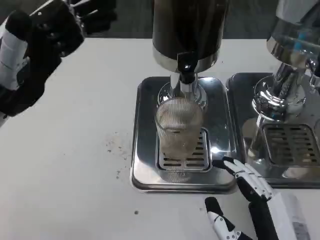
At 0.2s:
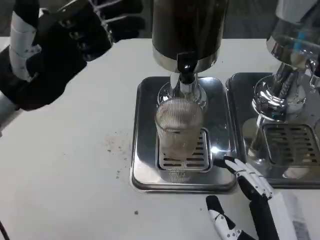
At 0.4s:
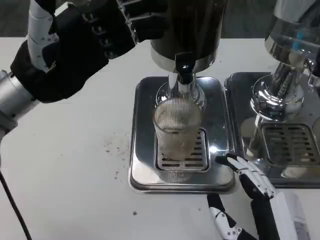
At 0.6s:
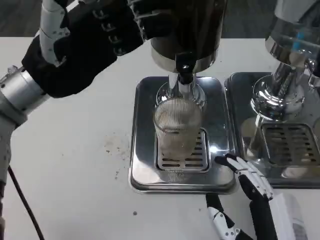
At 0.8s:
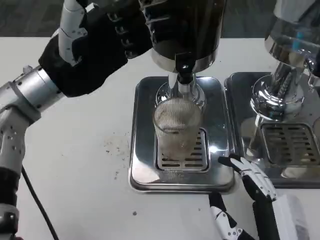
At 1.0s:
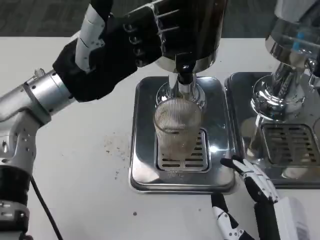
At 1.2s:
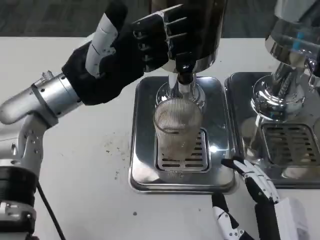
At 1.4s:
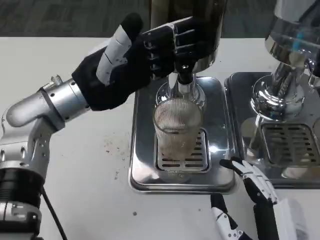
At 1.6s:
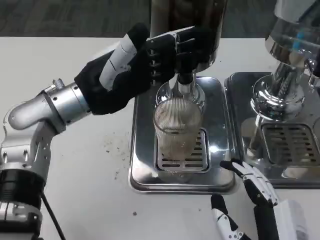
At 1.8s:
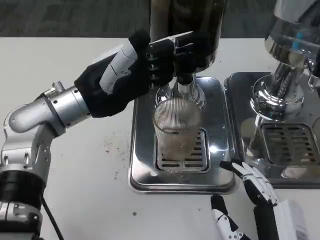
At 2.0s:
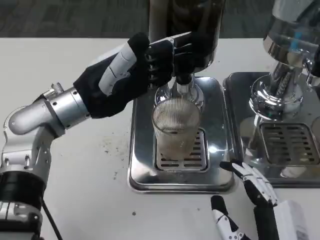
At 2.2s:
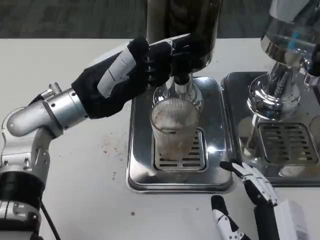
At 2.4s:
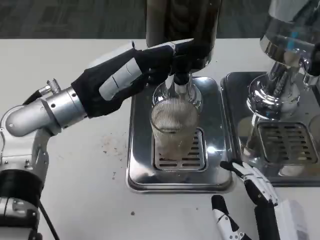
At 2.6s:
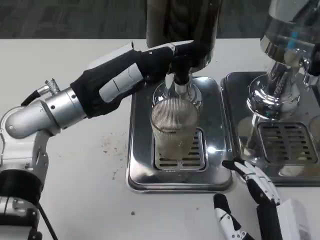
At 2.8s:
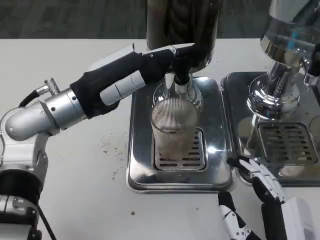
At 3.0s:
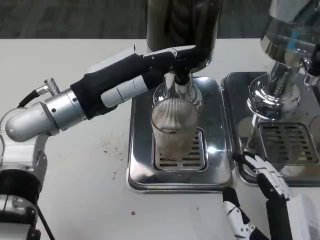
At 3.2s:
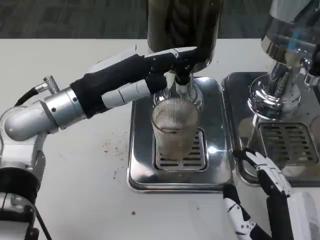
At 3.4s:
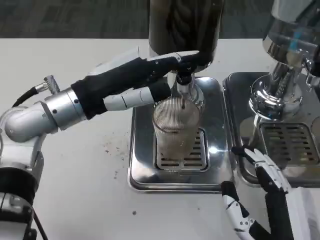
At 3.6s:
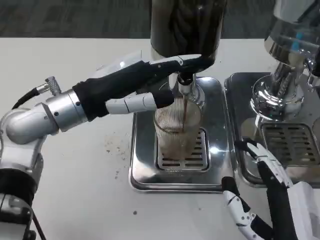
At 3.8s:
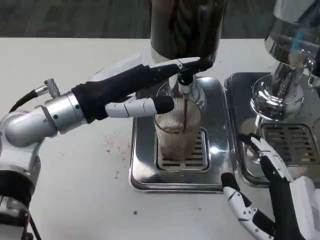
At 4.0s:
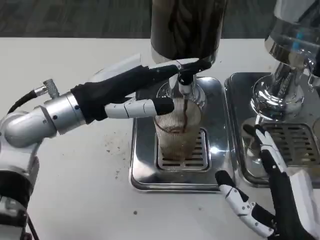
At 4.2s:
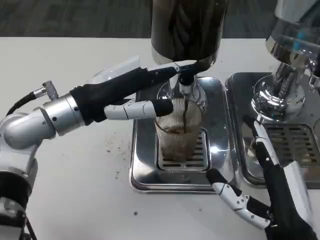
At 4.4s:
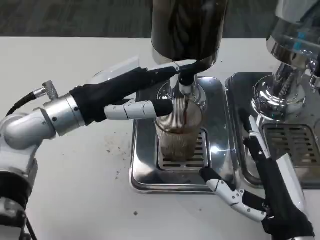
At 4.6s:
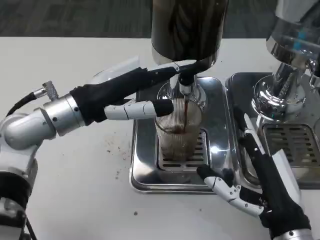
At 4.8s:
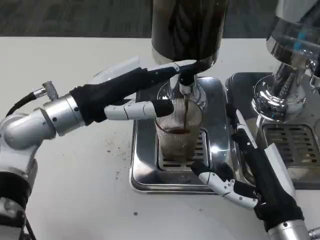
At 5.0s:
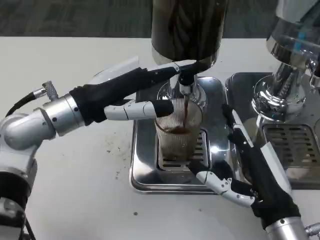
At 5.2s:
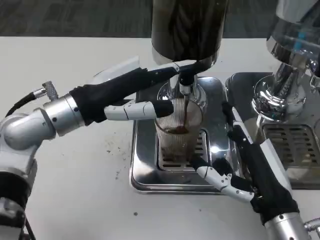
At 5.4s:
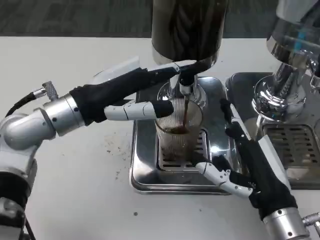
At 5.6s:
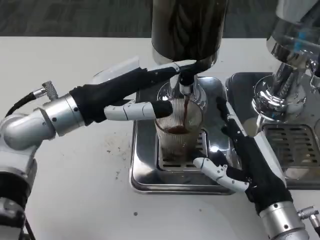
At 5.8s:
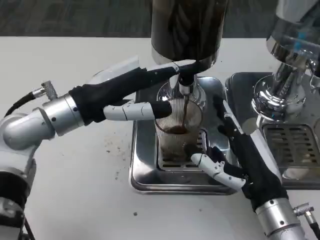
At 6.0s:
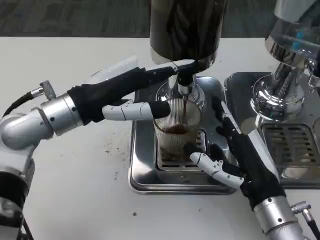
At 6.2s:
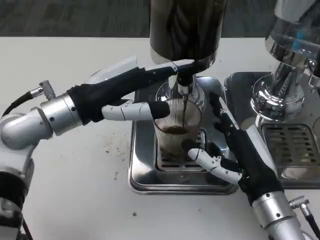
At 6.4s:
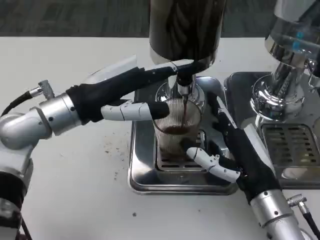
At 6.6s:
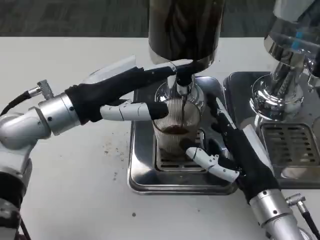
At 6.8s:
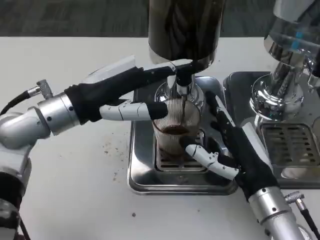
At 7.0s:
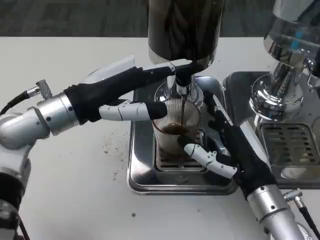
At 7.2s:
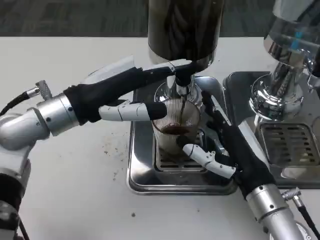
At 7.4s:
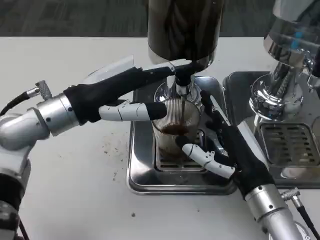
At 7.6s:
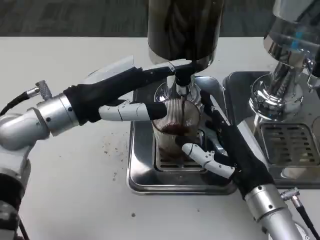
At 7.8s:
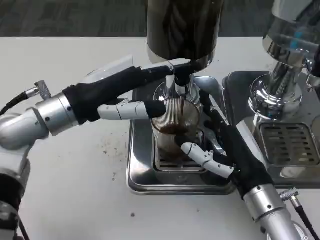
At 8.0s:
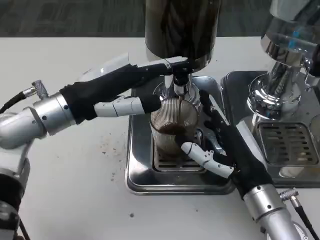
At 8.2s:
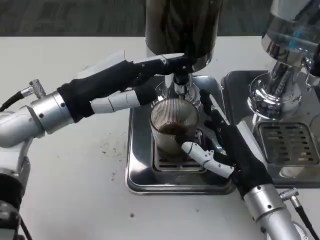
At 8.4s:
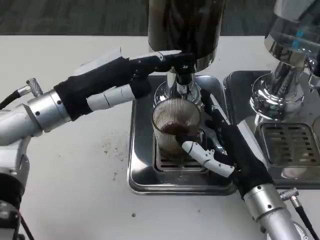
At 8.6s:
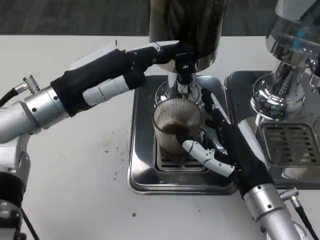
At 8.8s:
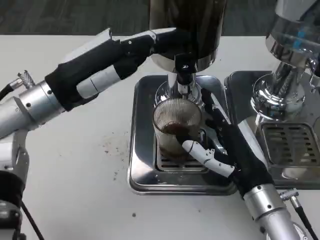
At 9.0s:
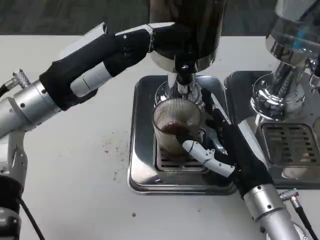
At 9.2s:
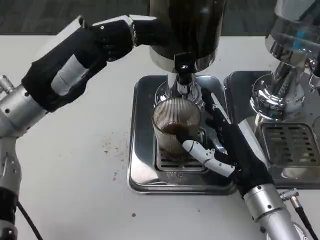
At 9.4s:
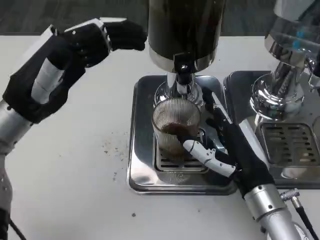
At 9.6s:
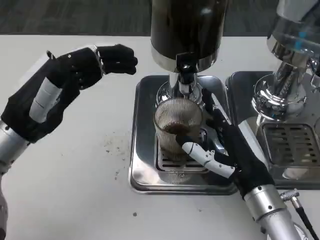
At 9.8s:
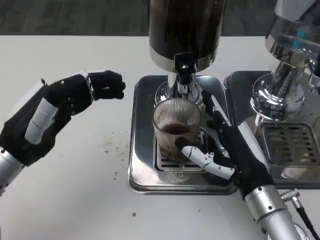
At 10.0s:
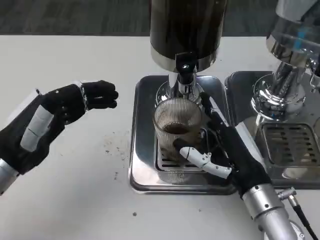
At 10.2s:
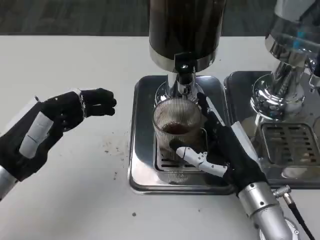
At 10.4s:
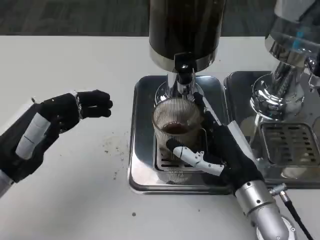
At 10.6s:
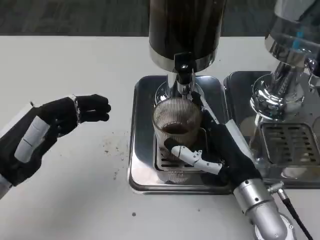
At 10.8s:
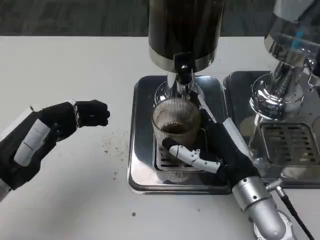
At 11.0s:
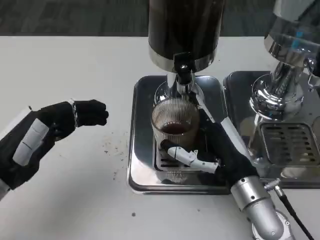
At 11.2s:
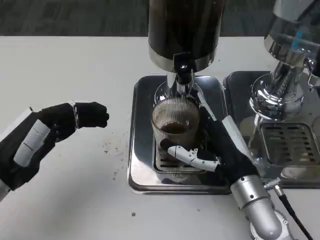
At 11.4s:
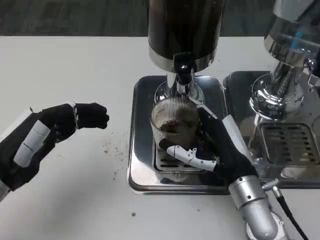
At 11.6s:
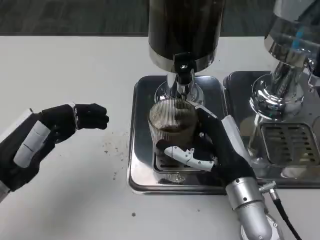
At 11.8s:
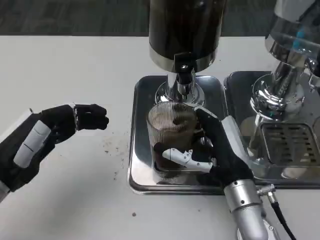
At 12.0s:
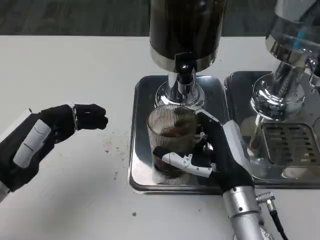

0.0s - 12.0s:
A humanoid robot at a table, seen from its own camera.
Task of the whole recording: Grasp the cup under the faucet to collect the drink, then remove the cup.
0.0s - 1.6s: The left hand moves to the right and forward, about 10 cm.
3.0s - 4.4s: The right hand moves forward, some 5 cm.
4.4s - 6.0s: The right hand is displaced forward by about 5 cm.
6.0s - 7.6s: The hands make only small movements.
9.0s - 10.4s: The left hand travels downward, backward and to the left by approximately 15 cm.
10.4s - 12.0s: There are only small adjustments of the hands.

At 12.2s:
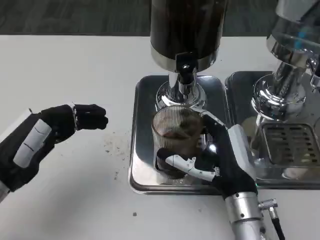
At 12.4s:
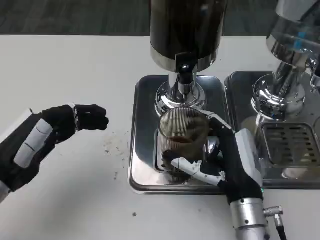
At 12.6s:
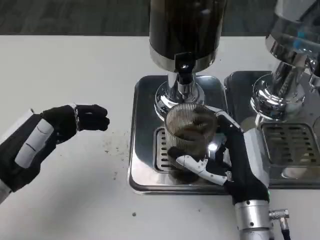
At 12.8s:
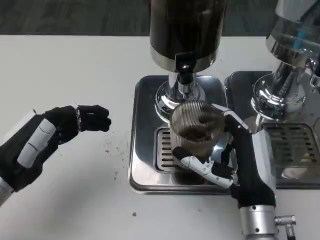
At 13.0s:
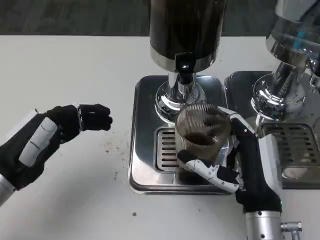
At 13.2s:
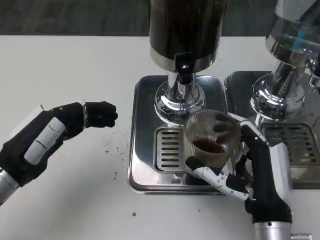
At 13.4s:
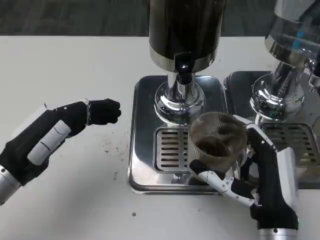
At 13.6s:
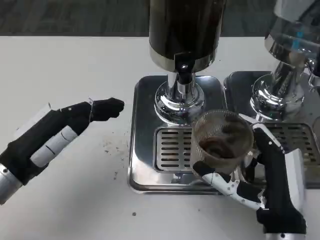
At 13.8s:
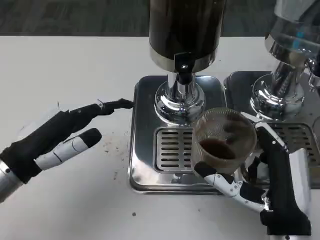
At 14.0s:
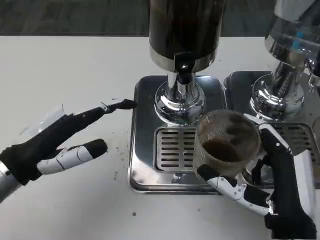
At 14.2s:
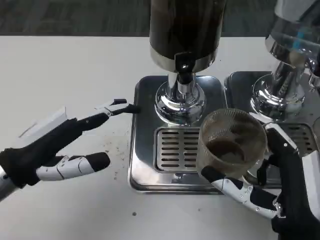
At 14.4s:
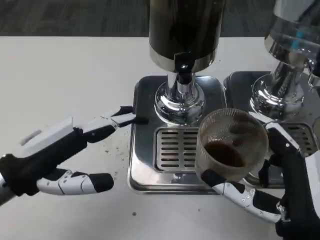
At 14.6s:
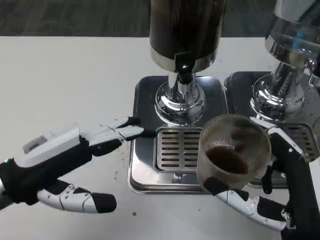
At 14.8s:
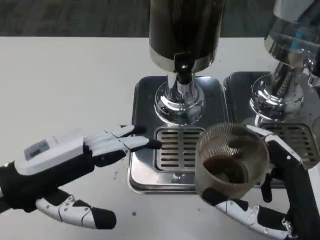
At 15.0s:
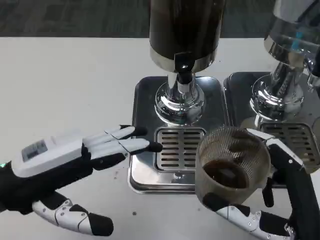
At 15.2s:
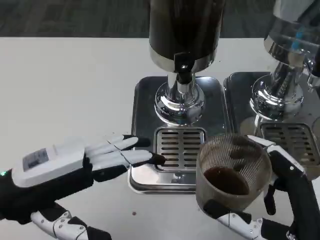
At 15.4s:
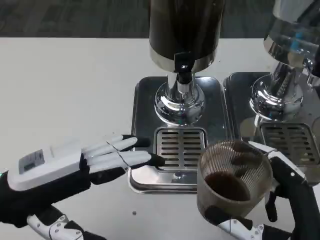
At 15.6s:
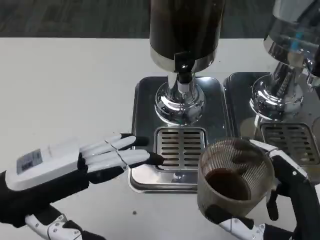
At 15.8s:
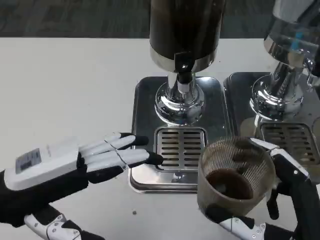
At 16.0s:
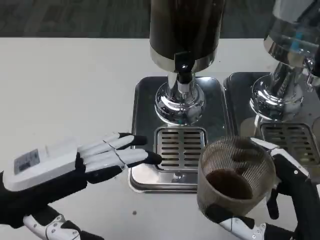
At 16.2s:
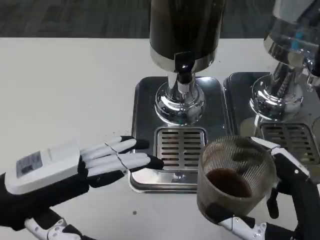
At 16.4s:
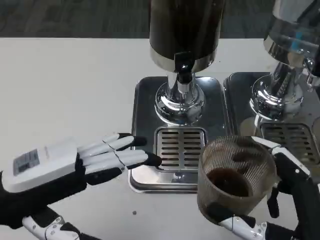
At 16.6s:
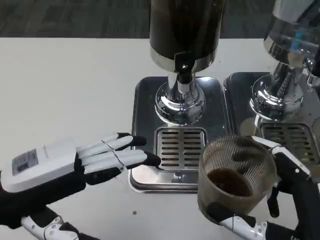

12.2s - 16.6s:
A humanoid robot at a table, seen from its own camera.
Task of the whole recording: Grasp the cup under the faucet to collect the drink, then remove the cup.
12.2s - 13.6s: The right hand is displaced backward by some 5 cm.
13.6s - 15.2s: The left hand changes place by roughly 5 cm; the right hand heads backward, covering about 5 cm.
15.2s - 16.6s: Both hands stay about where they are.

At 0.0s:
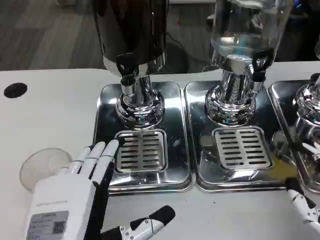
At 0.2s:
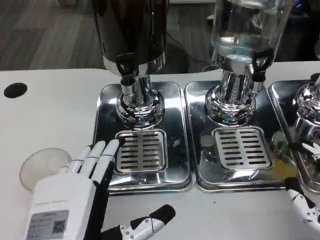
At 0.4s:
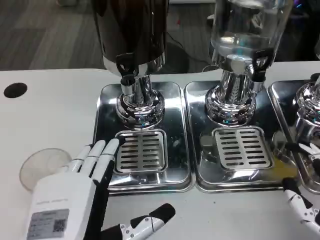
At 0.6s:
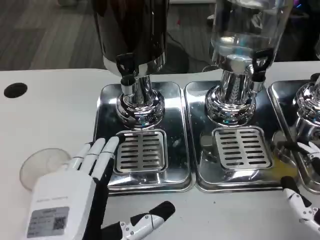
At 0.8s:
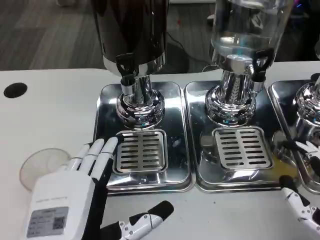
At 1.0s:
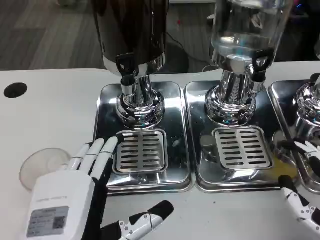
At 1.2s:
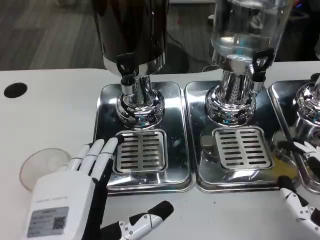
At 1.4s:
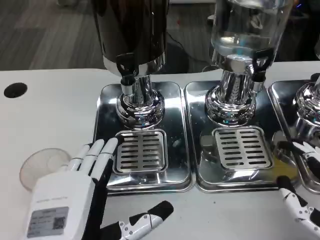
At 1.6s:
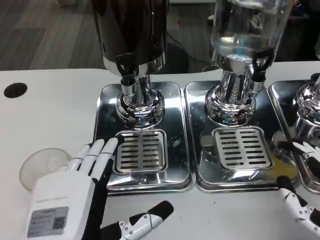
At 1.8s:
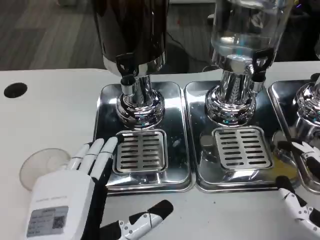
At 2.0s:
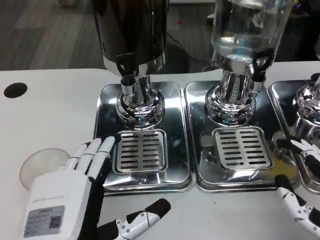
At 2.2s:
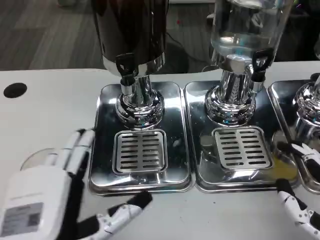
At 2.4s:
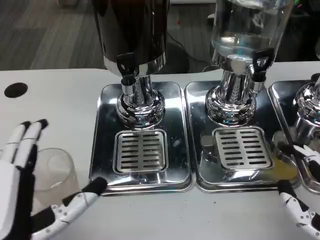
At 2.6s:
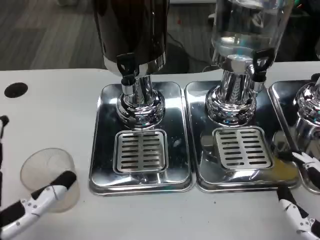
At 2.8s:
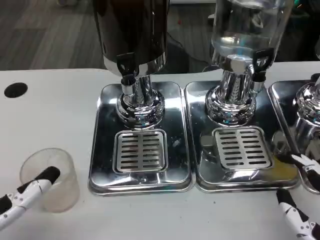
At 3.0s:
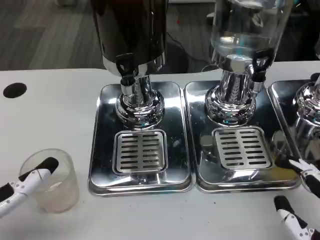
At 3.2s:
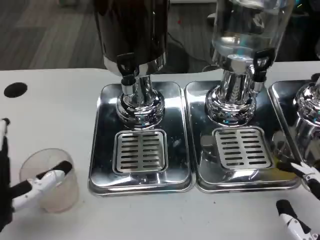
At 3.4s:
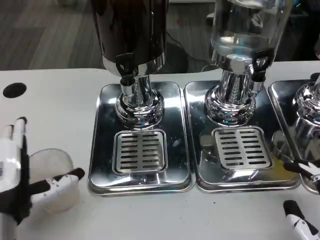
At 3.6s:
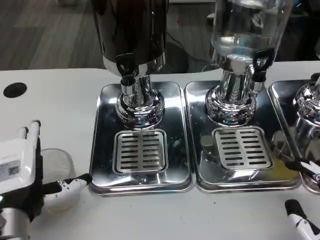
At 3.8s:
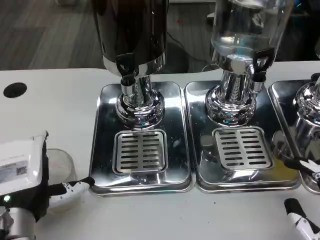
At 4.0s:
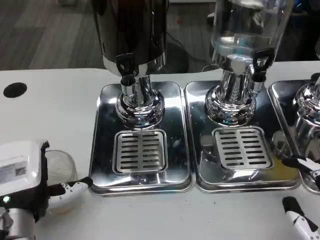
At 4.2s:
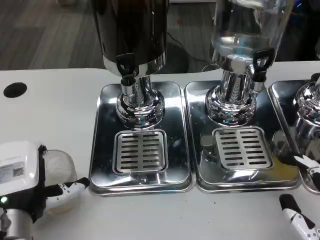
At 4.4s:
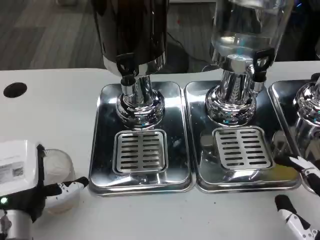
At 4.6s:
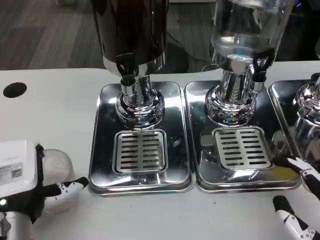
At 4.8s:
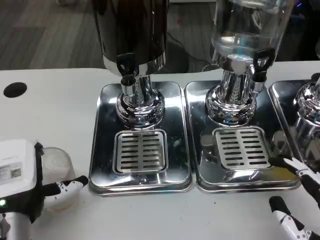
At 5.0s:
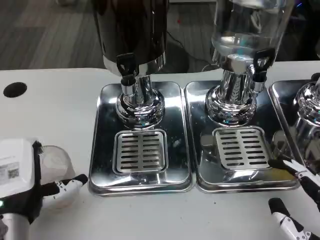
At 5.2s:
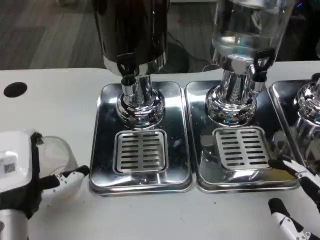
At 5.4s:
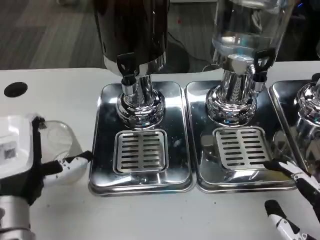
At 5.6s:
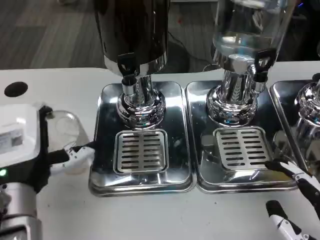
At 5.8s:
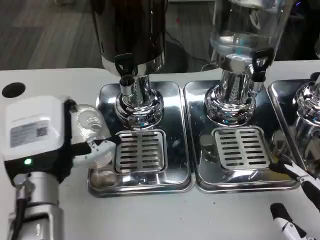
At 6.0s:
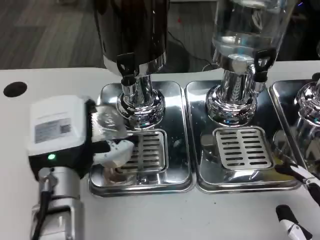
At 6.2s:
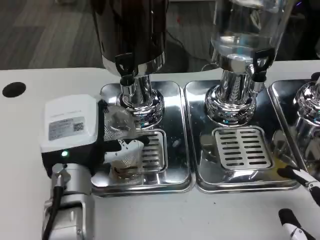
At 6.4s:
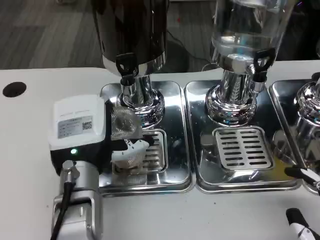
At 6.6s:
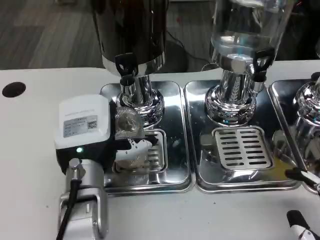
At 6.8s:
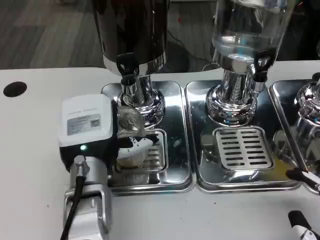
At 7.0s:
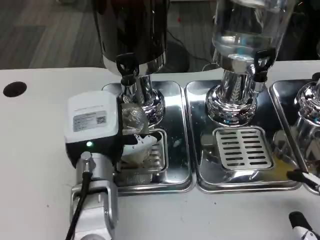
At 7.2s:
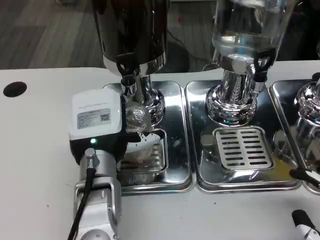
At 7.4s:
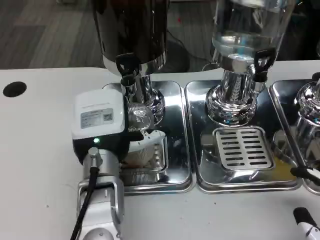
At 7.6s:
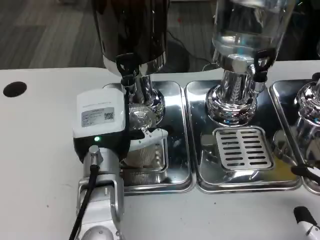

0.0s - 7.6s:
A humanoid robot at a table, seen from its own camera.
Task of the whole recording: Grasp the cup under the faucet to collect the drink, then remove the cup.
0.0s - 1.6s: Neither hand changes place.
1.6s - 3.0s: The left hand is displaced to the left by roughly 10 cm.
3.0s - 4.6s: The left hand changes place by some 5 cm.
4.6s - 6.0s: The left hand travels to the right by some 5 cm.
6.0s - 7.6s: The left hand moves roughly 5 cm.
